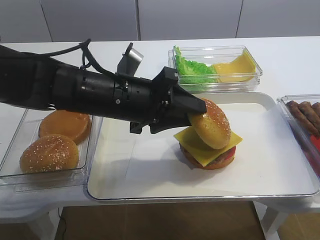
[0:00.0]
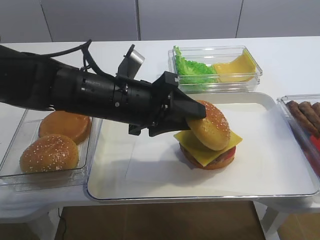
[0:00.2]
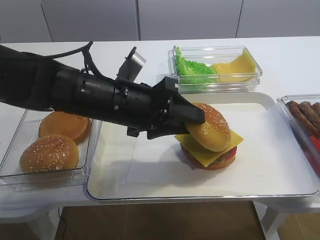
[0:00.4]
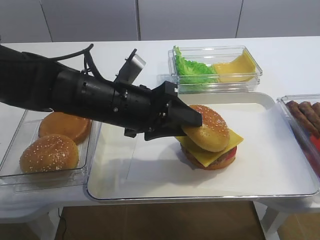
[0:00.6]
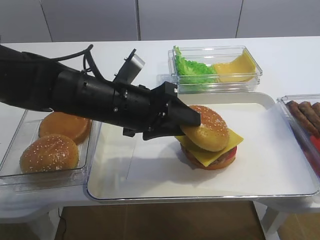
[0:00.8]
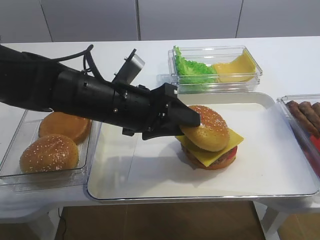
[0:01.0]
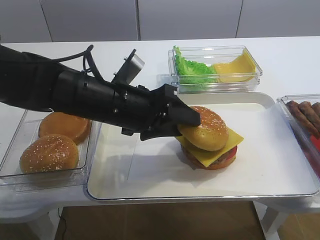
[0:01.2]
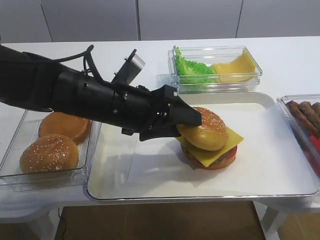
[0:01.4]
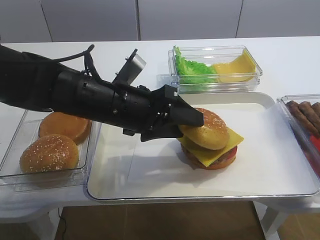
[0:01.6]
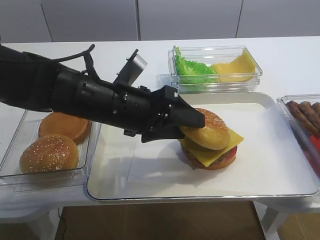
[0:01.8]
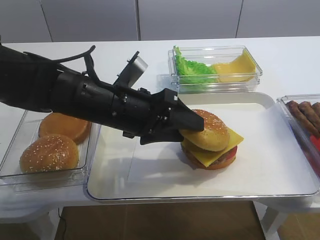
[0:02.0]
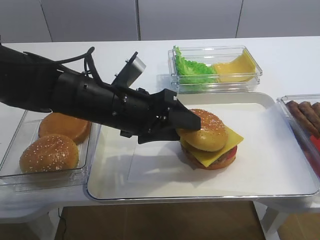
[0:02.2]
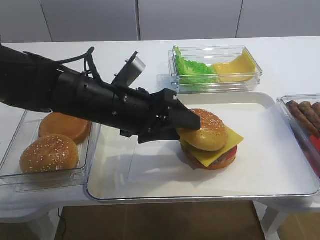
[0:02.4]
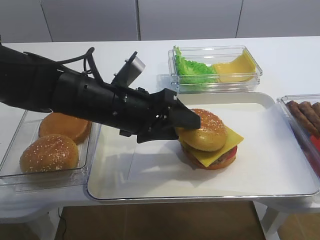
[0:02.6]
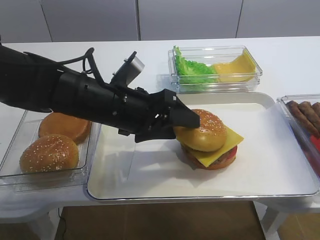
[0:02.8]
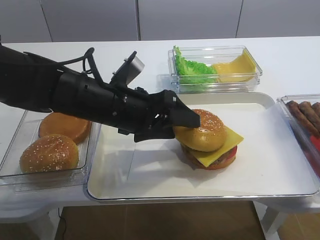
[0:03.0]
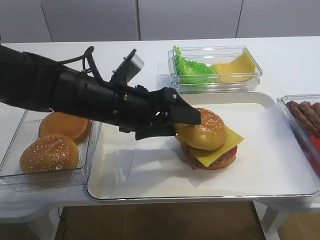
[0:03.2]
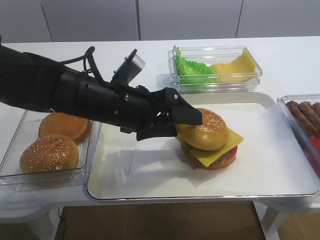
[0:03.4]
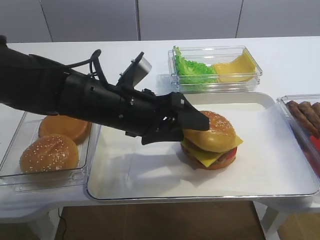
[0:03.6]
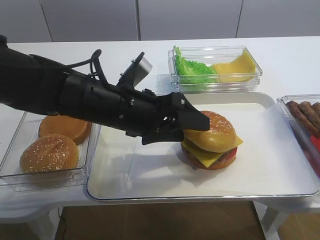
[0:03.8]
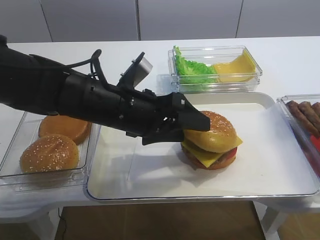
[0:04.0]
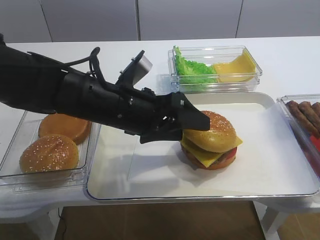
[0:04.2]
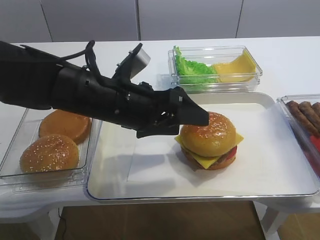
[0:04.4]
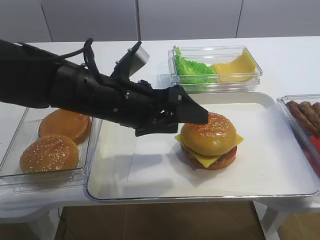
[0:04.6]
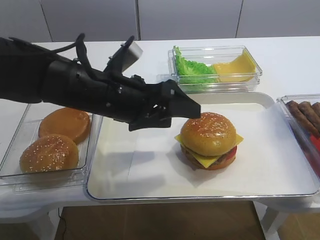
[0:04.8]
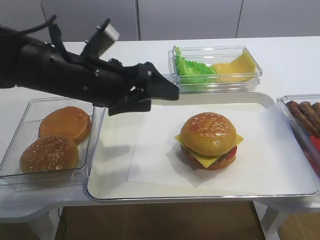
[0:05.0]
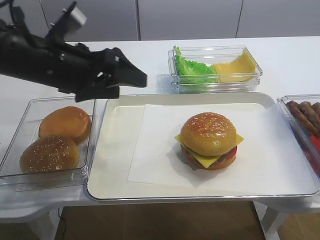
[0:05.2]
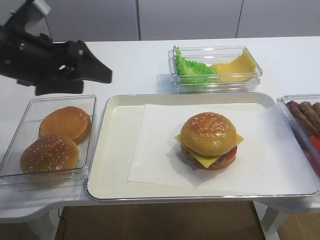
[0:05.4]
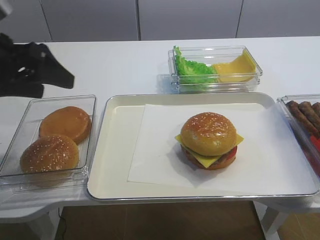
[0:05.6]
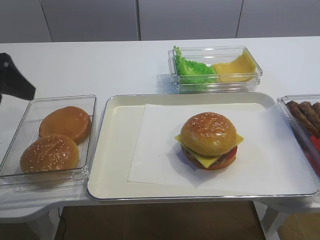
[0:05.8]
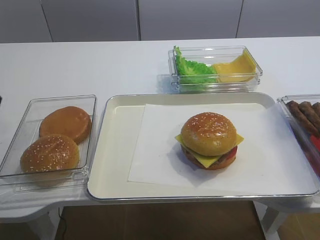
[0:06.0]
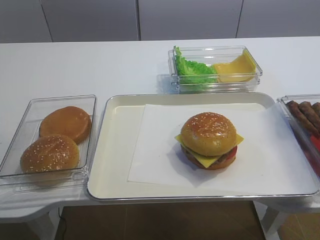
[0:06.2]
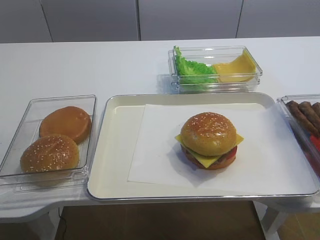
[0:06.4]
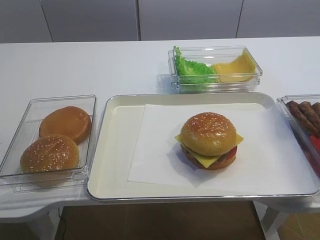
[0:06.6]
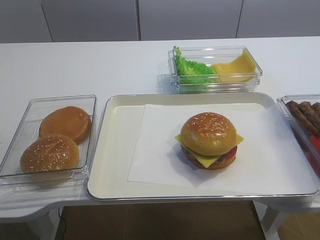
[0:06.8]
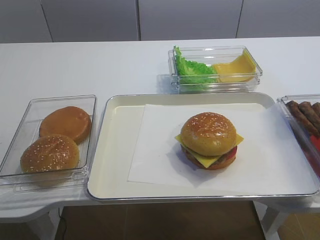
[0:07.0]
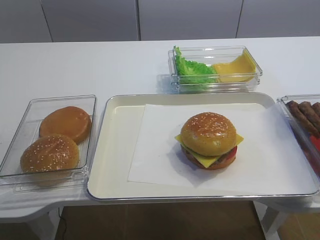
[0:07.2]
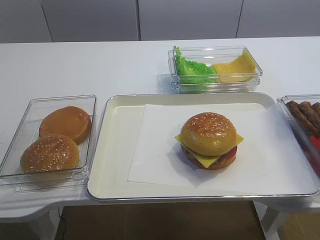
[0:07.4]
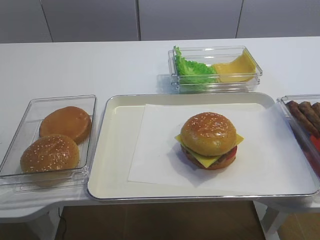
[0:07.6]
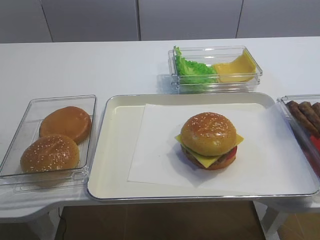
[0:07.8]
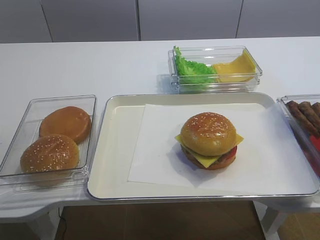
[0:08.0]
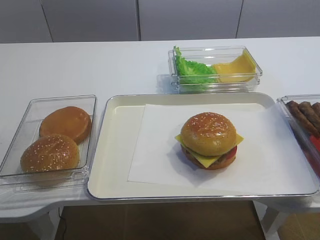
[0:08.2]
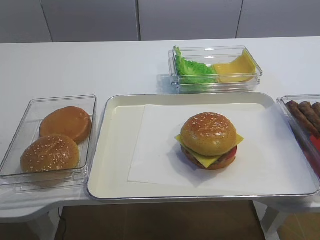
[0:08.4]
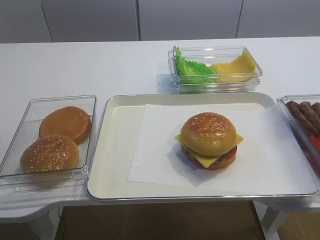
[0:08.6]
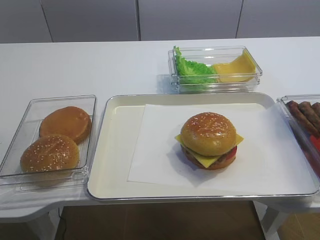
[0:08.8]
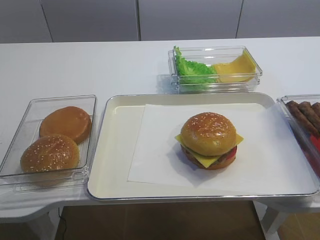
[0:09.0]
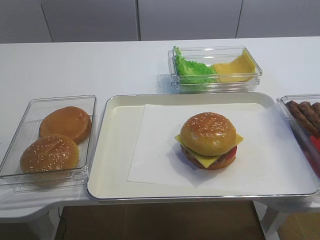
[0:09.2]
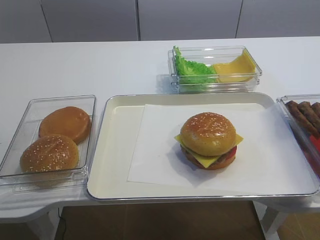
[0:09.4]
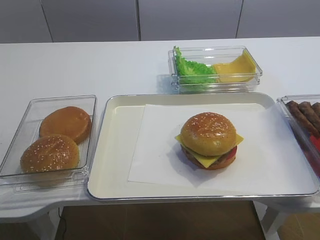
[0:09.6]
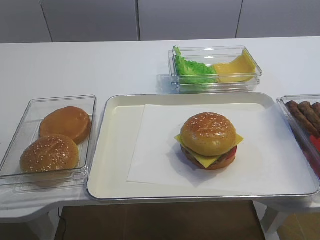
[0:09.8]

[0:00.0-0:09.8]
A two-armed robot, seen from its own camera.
Step, 0:00.0 to 0:04.6: Place the hamburger lid on the cheese slice with the left gripper.
0:00.0 to 0:01.4: The grippers make only small movements.
0:01.4 to 0:04.2: Neither gripper changes place.
0:04.2 to 0:05.6: The left gripper is displaced to the left and upward by roughly 20 cm.
0:05.6 to 0:07.0: The left gripper heads backward, covering roughly 20 cm.

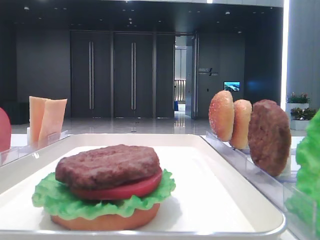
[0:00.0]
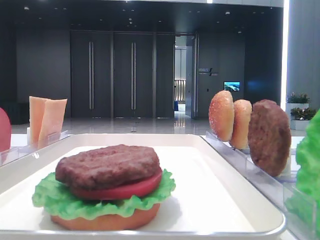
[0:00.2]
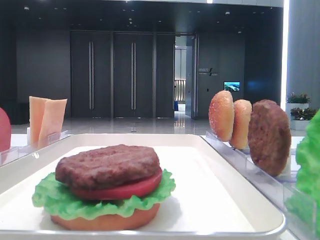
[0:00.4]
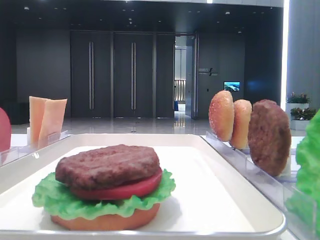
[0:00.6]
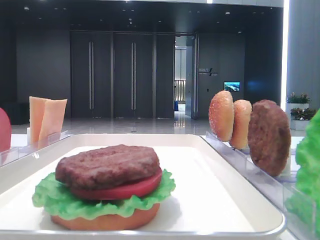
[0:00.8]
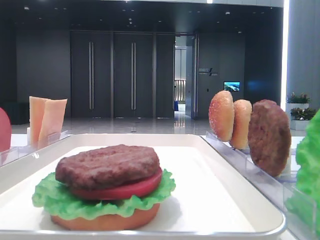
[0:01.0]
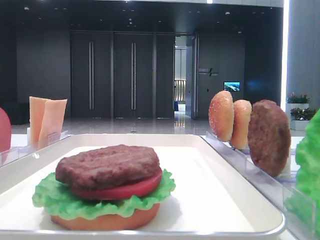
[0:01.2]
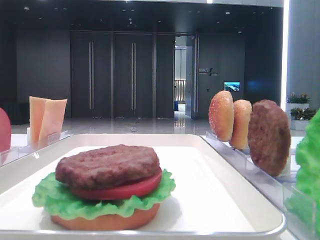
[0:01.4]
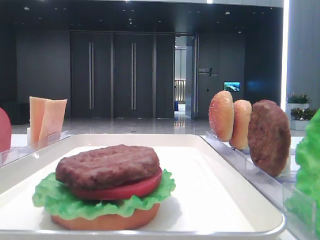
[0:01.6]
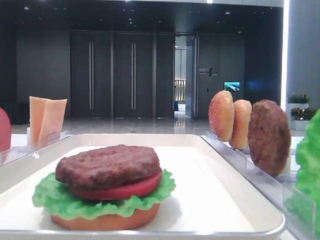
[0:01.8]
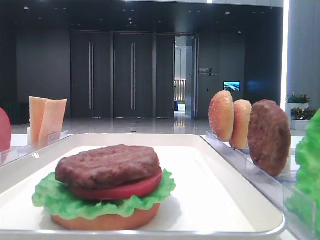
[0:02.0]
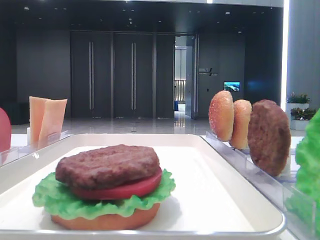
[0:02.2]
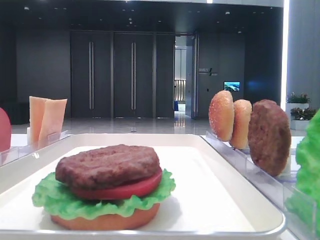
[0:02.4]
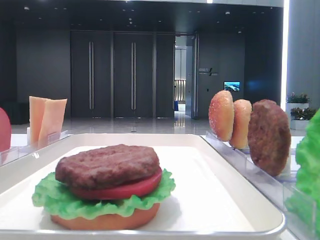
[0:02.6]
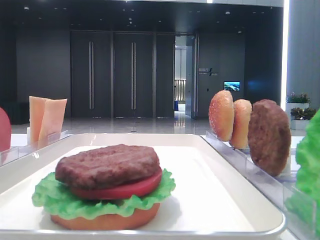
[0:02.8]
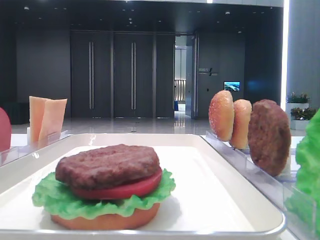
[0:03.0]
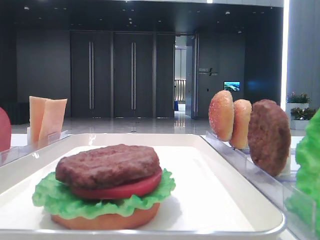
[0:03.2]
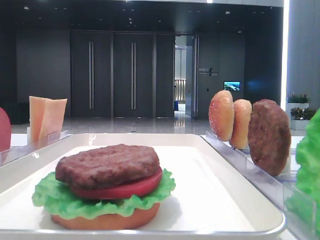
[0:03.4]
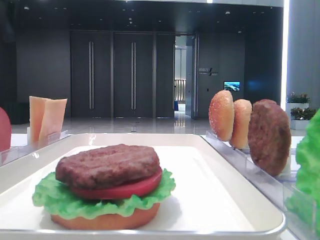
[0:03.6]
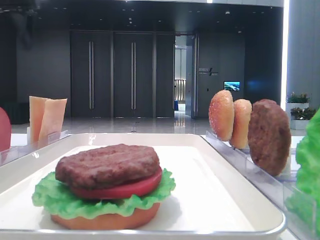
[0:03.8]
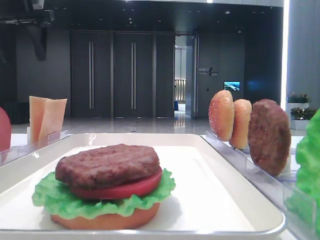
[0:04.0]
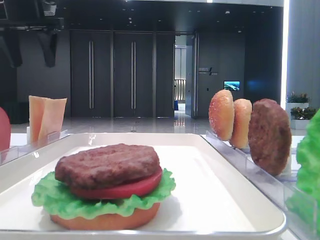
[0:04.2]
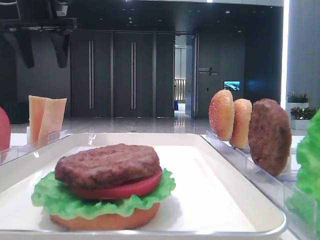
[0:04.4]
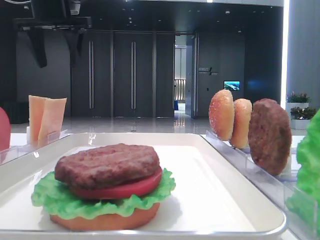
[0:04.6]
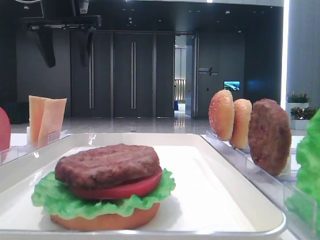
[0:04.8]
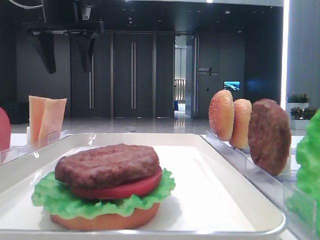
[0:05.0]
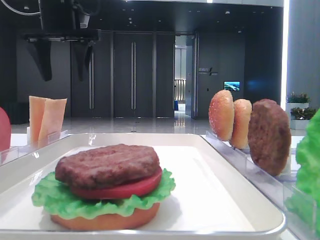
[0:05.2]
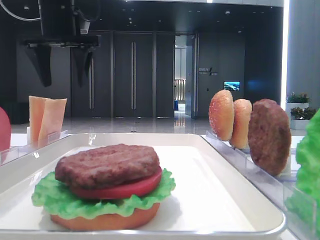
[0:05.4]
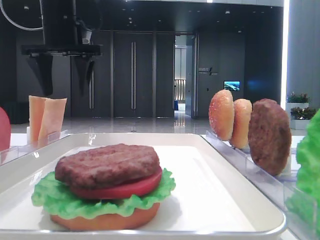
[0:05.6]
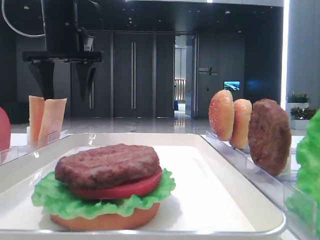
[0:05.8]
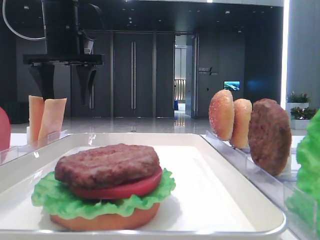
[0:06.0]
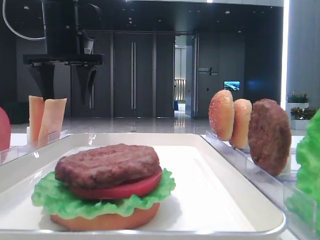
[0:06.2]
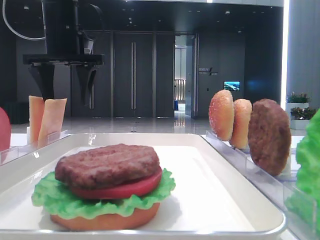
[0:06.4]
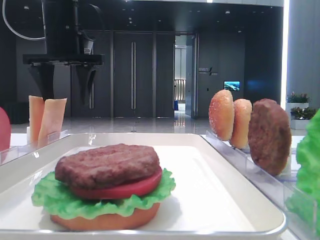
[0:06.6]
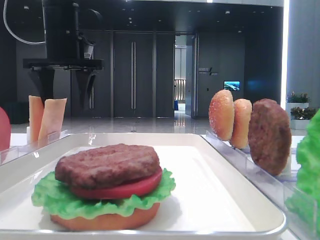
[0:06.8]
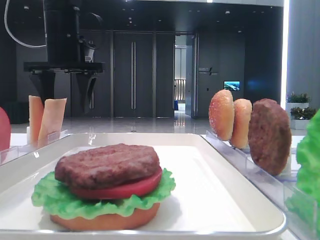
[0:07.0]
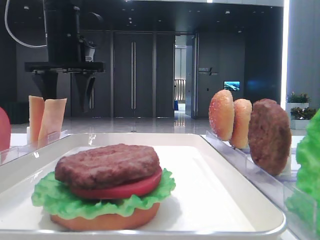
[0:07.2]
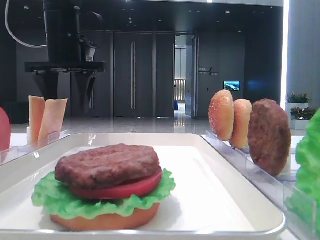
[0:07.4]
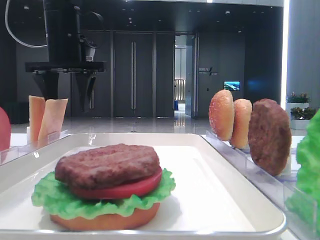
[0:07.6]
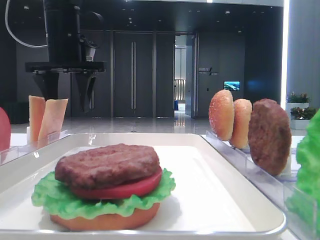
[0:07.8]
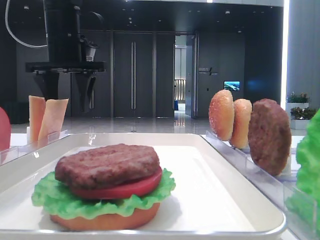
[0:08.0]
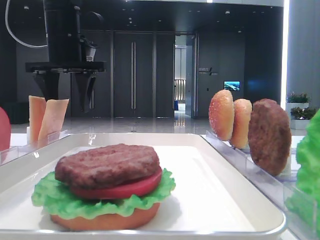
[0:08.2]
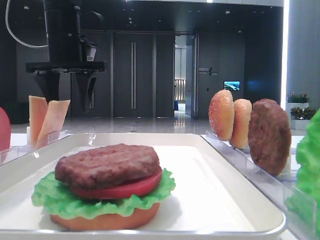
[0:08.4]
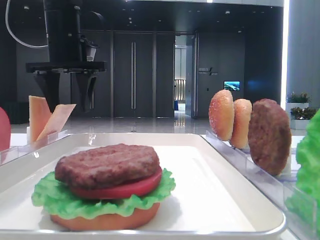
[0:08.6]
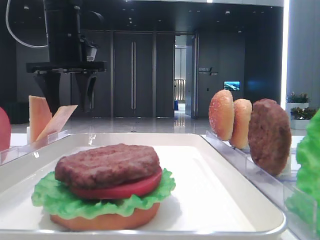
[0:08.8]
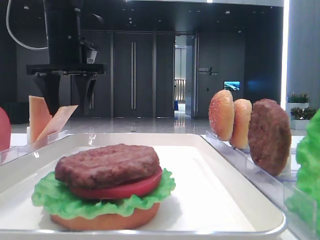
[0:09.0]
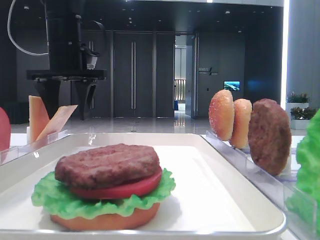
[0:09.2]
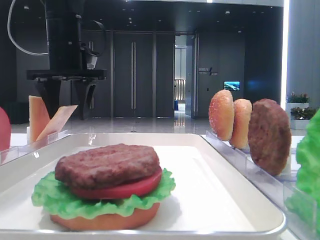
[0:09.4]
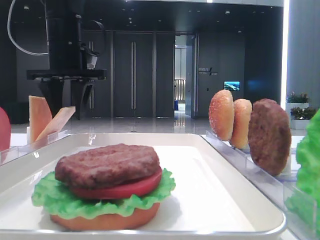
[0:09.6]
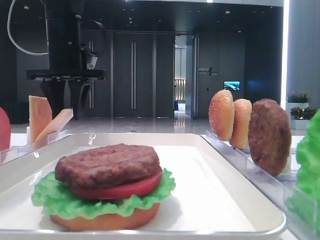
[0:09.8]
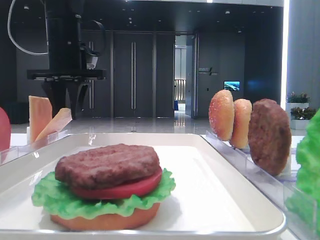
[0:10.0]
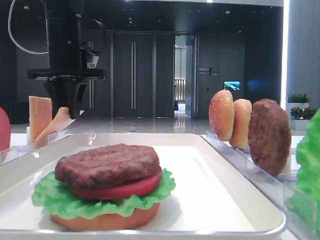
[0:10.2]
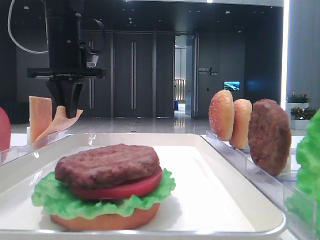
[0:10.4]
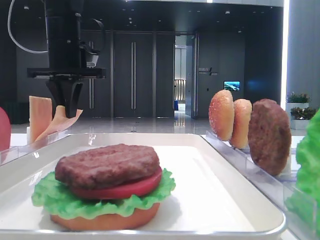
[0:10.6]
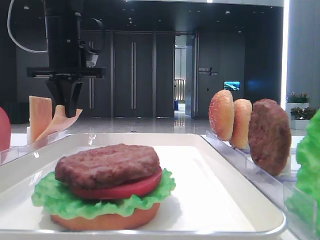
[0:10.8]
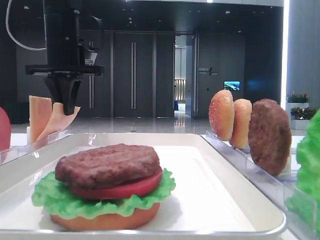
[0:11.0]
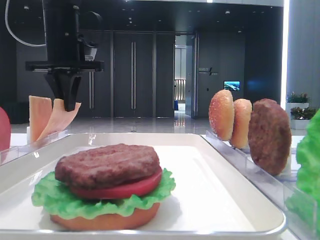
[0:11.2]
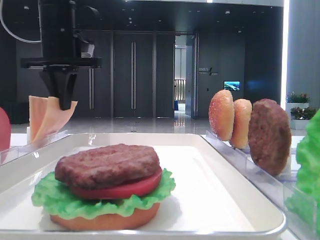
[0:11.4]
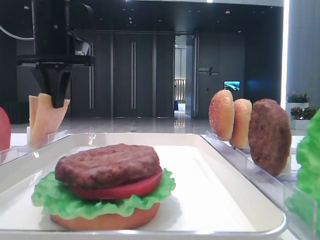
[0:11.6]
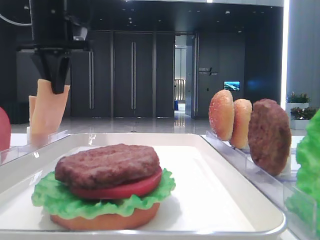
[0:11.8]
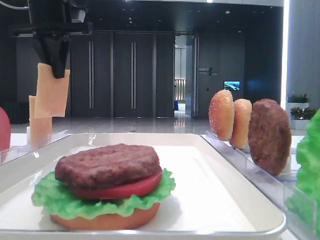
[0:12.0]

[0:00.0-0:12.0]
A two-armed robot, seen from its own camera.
Step, 0:00.0 to 0:10.2: Pick up the cheese slice with the left hand.
0:03.0 to 0:04.4: The left gripper moves forward, to the right and downward, about 20 cm.
0:04.4 to 0:06.0: The left gripper is displaced downward and to the right by approximately 10 cm.
0:06.0 to 0:07.6: The two grippers keep their place.
0:07.6 to 0:09.0: The two grippers keep their place.
0:09.0 to 0:10.4: The left gripper closes up.
0:10.4 to 0:12.0: The left gripper shifts some 5 cm upward.

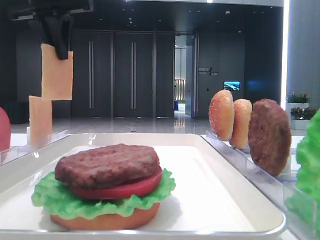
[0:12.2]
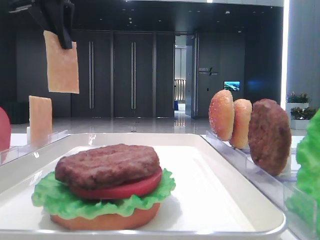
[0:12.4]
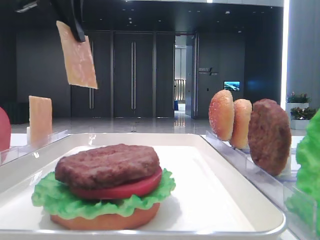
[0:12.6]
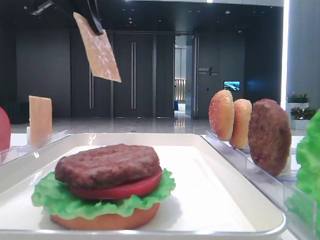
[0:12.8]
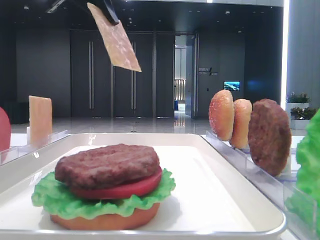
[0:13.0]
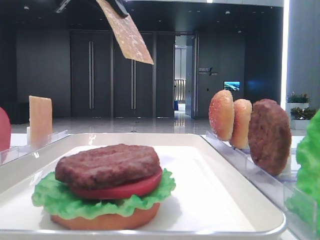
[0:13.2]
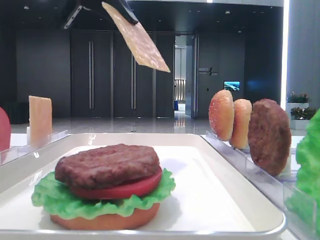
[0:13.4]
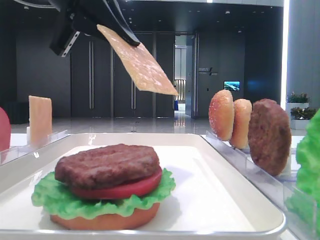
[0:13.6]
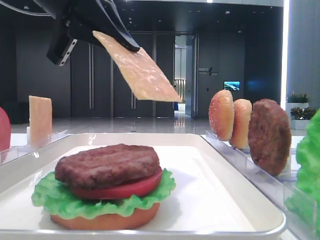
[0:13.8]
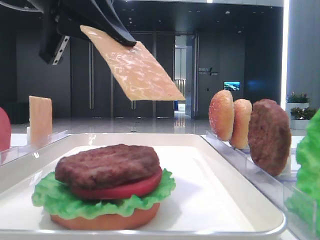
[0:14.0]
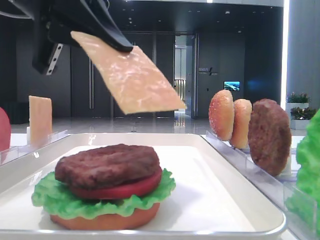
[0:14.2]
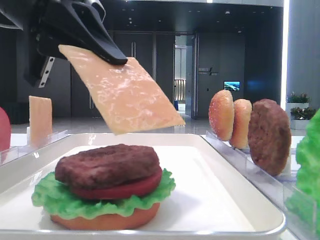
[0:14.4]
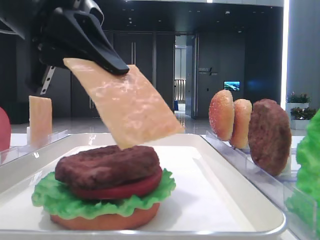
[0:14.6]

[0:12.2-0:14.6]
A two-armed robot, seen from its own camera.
0:12.2 to 0:13.4: The left gripper moves backward and to the right, some 10 cm.
0:13.4 to 0:14.6: The left gripper is displaced downward and backward by some 15 cm.
